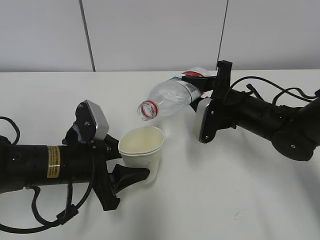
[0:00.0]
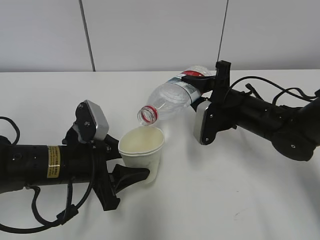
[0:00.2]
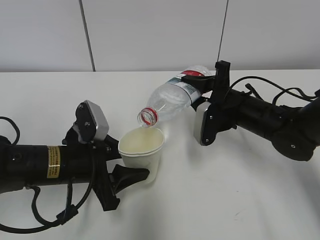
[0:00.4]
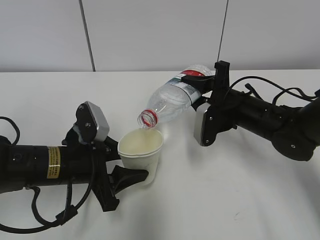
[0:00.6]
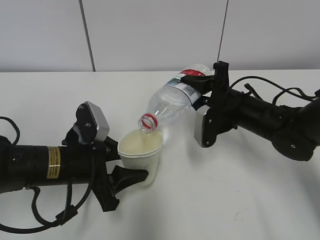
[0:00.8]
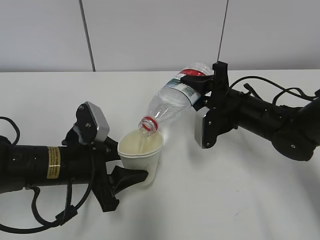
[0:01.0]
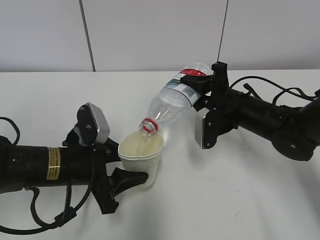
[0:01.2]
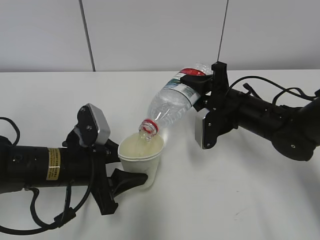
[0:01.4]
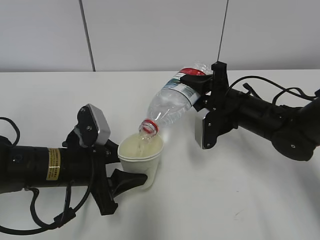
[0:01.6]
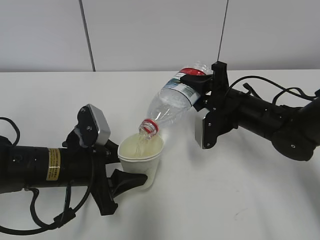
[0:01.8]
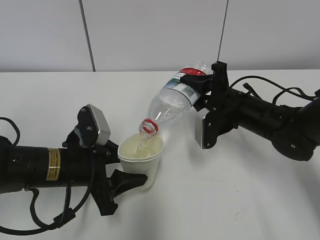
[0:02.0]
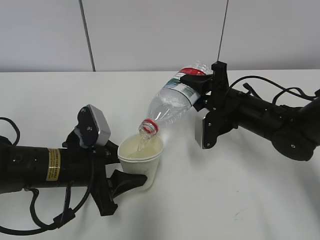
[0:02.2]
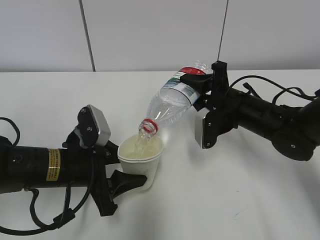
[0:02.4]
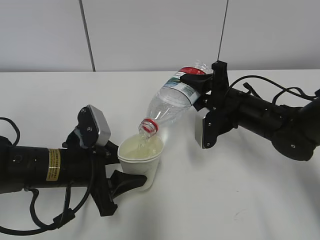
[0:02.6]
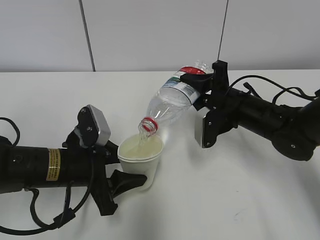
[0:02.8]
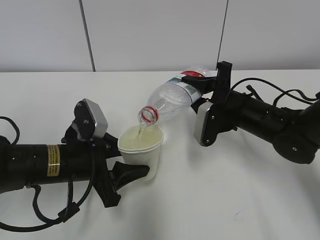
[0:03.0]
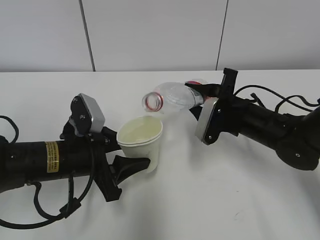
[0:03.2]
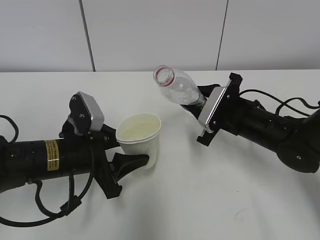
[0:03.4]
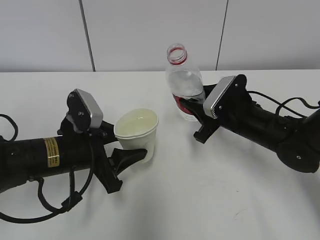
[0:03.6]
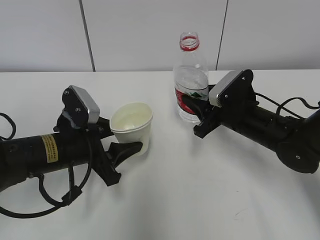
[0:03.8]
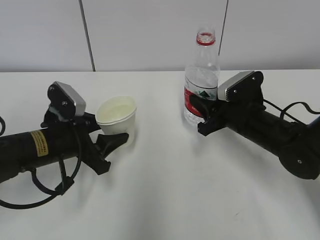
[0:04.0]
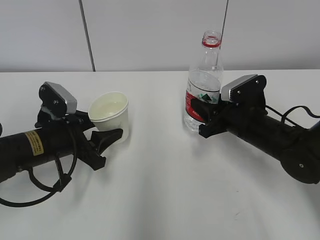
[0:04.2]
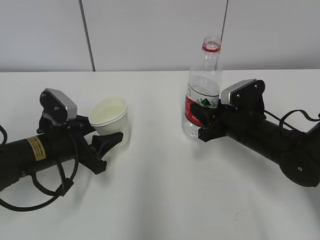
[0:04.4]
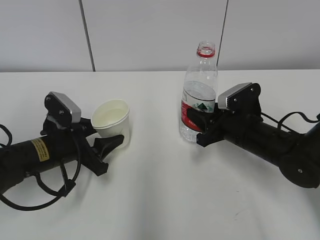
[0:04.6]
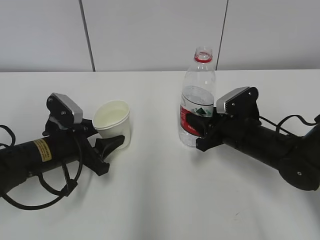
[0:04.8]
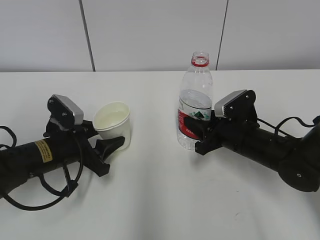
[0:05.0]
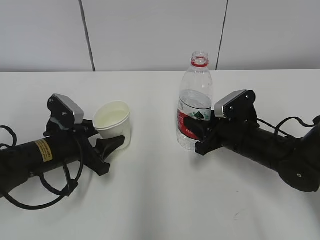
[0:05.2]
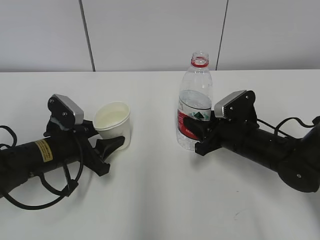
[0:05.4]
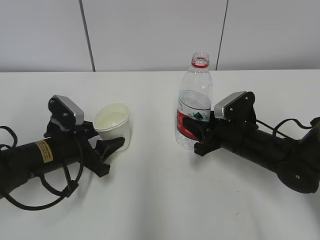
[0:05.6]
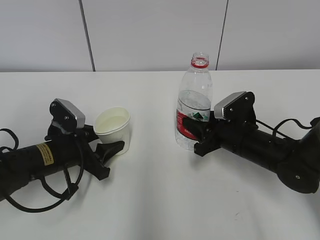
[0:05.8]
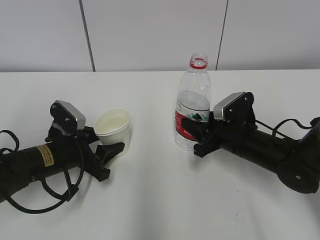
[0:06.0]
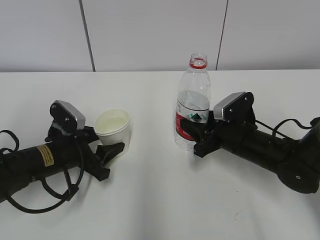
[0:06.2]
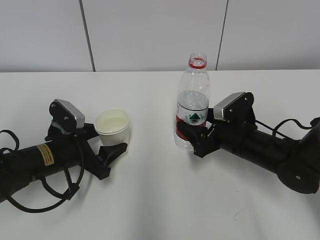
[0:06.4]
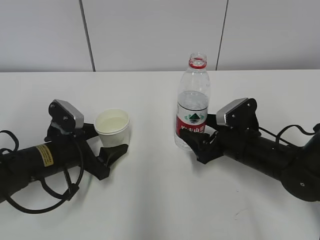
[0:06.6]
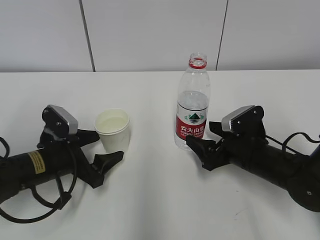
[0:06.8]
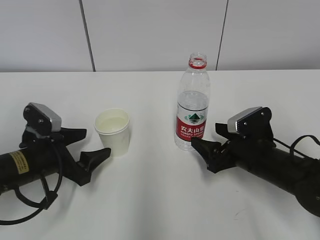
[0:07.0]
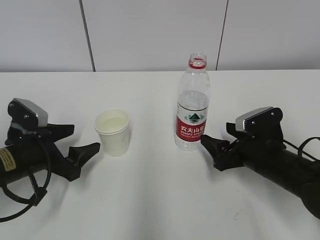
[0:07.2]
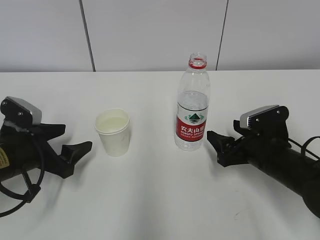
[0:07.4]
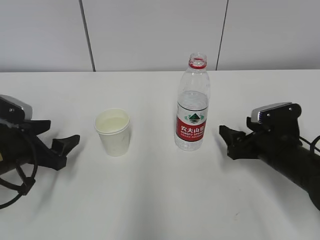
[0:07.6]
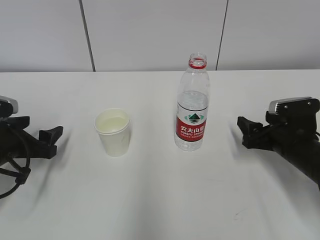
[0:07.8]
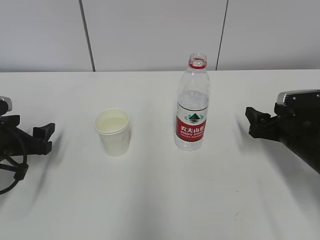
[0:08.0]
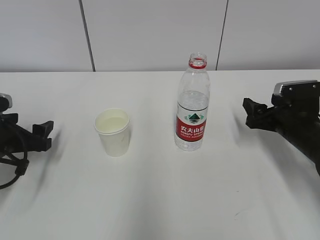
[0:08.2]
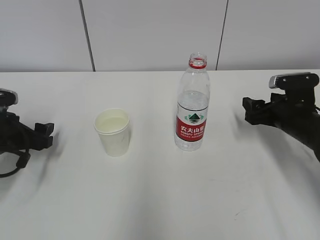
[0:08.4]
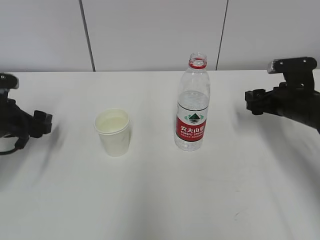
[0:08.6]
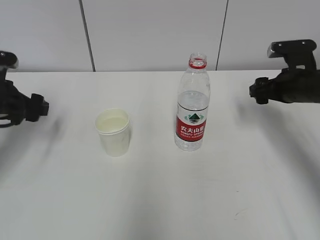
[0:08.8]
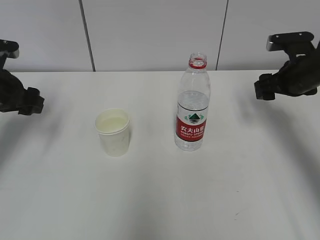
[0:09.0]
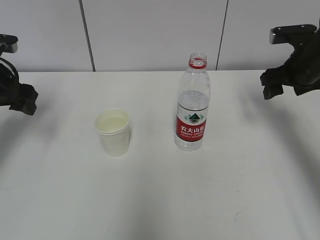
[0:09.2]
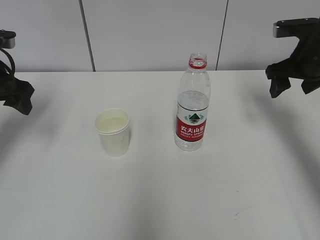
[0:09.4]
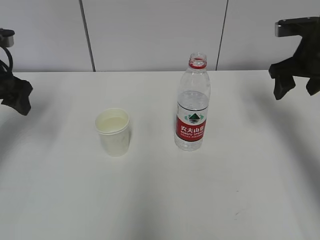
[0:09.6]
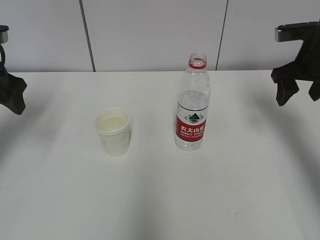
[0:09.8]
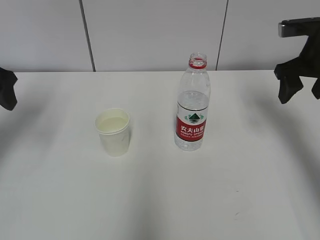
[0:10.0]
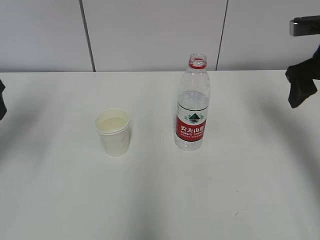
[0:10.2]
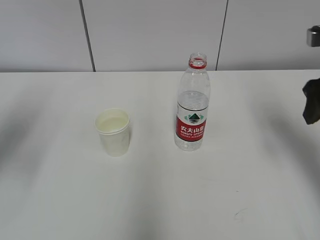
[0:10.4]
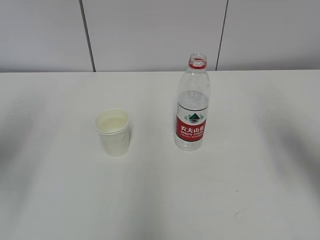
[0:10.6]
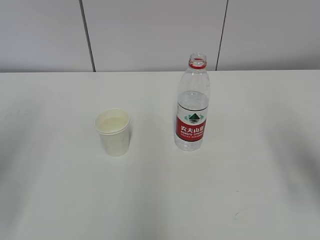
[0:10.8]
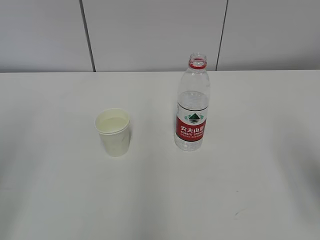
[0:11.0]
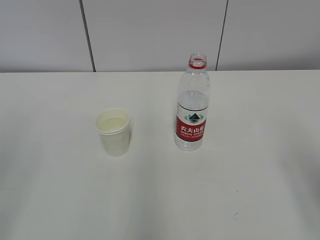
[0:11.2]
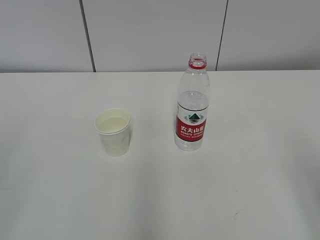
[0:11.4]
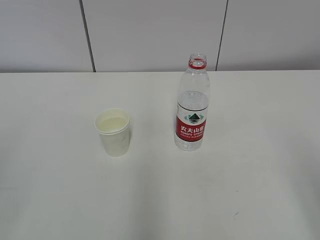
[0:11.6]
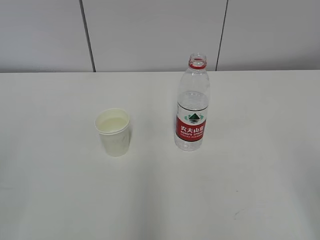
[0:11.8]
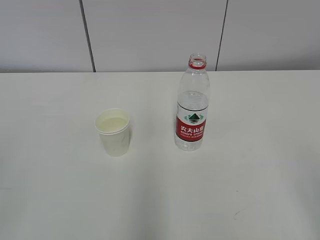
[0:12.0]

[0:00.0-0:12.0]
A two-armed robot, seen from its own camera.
Step, 0:00.4 to 0:02.0: Place the paper cup with the left hand.
0:00.0 to 0:03.0: The grippers stay close to where they were, moving slightly.
0:03.0 to 0:04.4: The left gripper changes place by some 5 cm.
0:04.4 to 0:06.0: There are only small adjustments of the grippers.
0:06.0 to 0:07.6: The right gripper travels to the right by about 5 cm, and opens its fingers. Meanwhile the left gripper shifts about 5 cm to the left, and opens.
0:07.6 to 0:09.0: The left gripper travels upward and forward by about 15 cm. Meanwhile the right gripper moves upward, forward and to the right, roughly 15 cm.
0:09.0 to 0:10.4: The grippers both shift backward and upward by roughly 15 cm.
0:10.4 to 0:12.0: Both grippers travel together backward, approximately 25 cm.

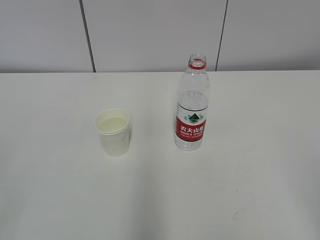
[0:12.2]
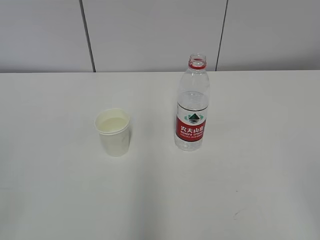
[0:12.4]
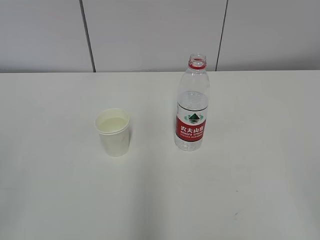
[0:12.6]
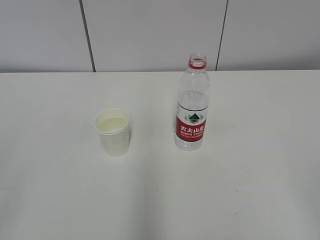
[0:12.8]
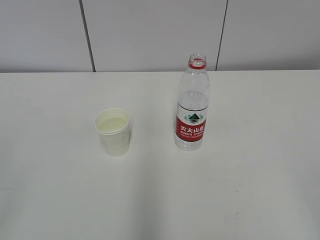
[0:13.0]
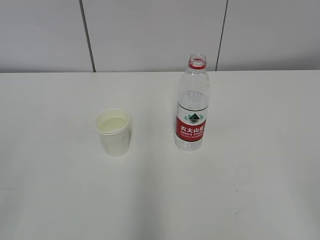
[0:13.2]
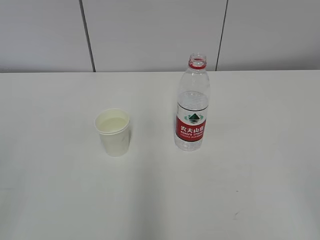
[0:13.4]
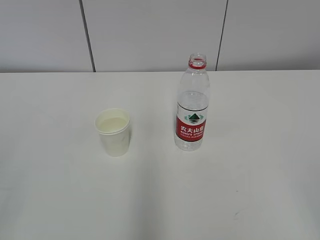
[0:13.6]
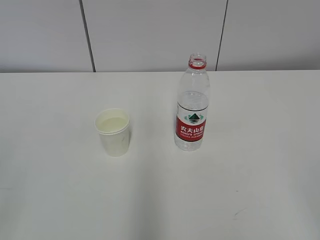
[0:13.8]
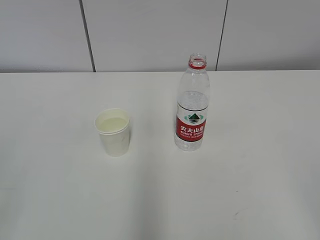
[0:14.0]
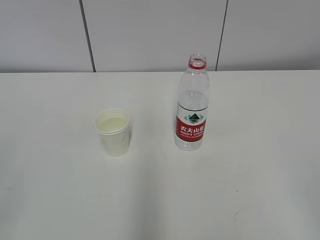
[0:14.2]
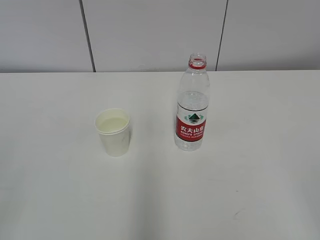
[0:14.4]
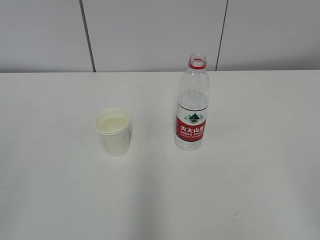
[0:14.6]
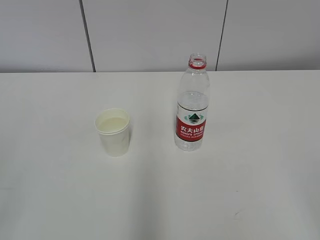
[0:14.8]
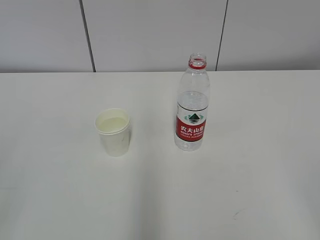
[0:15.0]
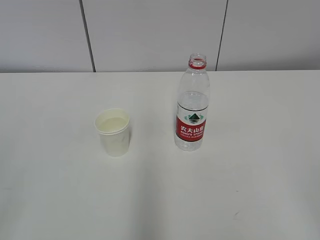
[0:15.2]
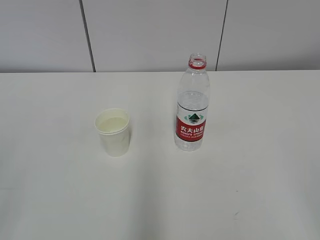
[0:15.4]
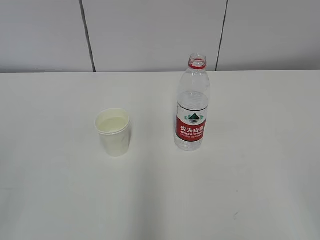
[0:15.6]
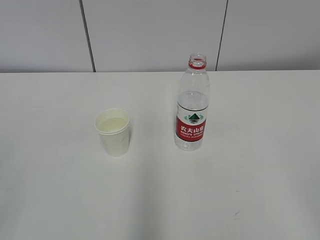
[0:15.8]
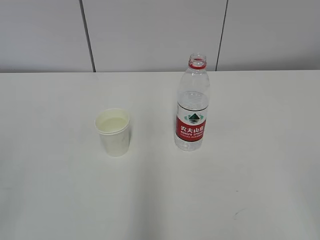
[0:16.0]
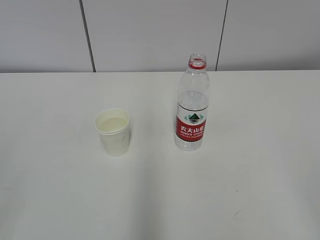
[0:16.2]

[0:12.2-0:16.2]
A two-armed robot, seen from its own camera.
0:13.6 to 0:16.2: Both grippers stay put.

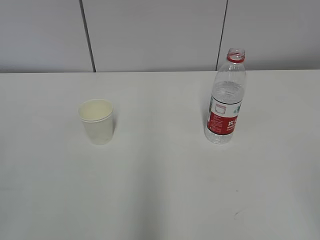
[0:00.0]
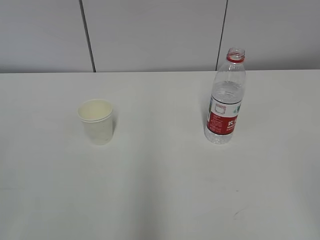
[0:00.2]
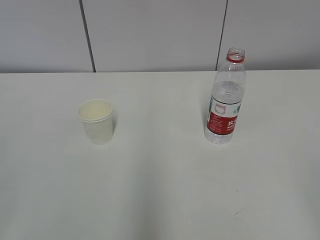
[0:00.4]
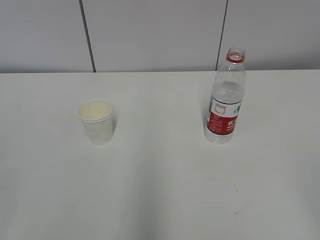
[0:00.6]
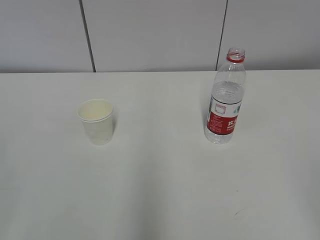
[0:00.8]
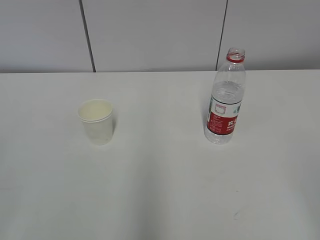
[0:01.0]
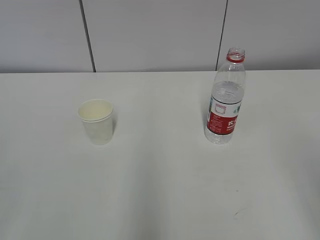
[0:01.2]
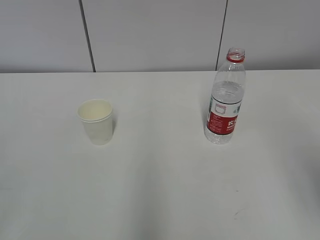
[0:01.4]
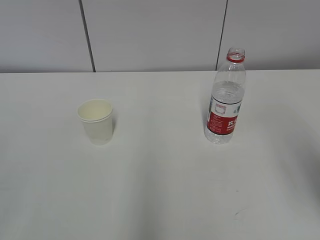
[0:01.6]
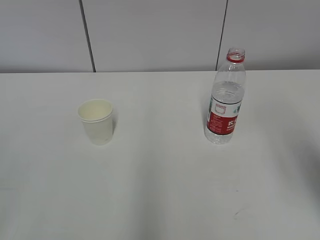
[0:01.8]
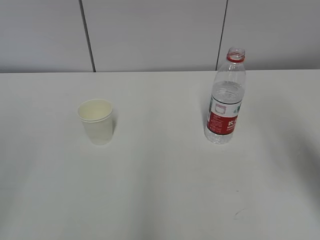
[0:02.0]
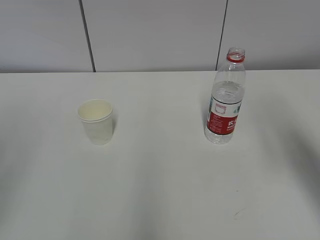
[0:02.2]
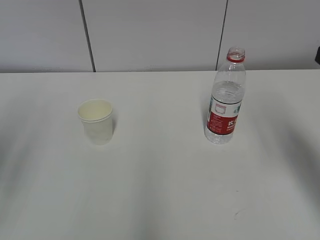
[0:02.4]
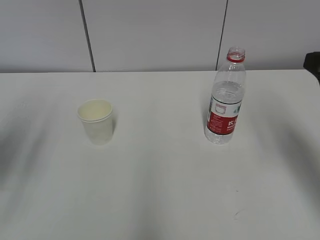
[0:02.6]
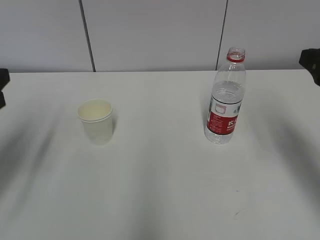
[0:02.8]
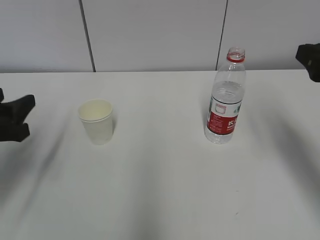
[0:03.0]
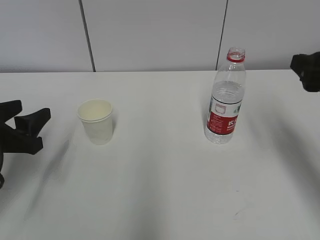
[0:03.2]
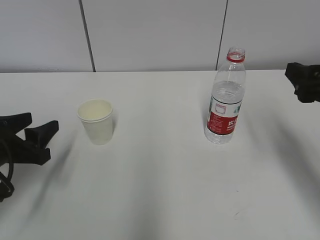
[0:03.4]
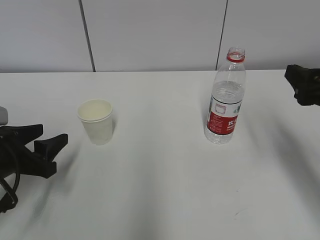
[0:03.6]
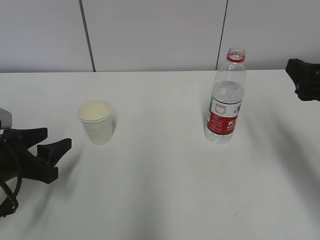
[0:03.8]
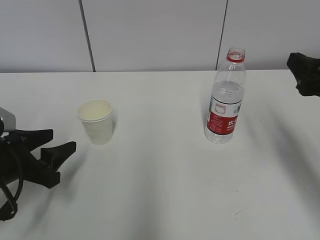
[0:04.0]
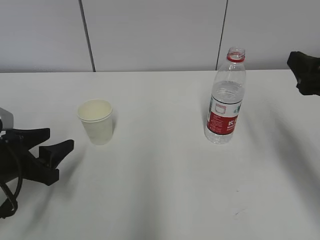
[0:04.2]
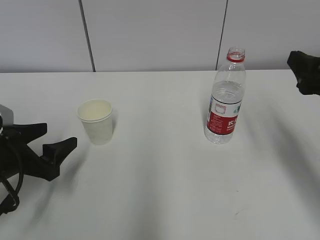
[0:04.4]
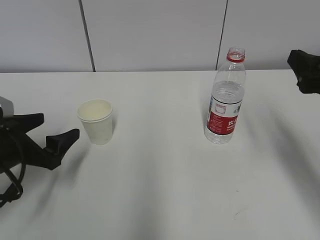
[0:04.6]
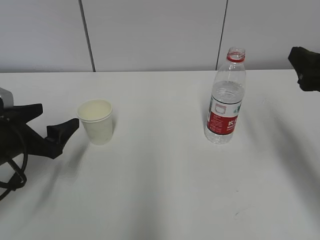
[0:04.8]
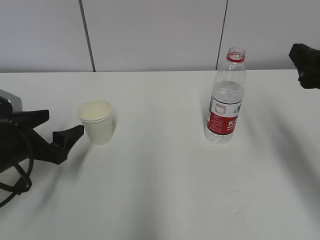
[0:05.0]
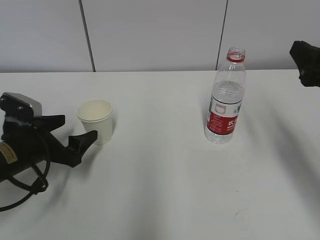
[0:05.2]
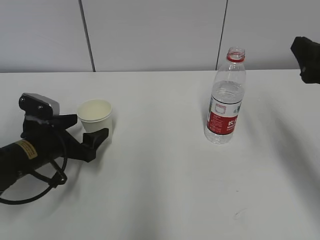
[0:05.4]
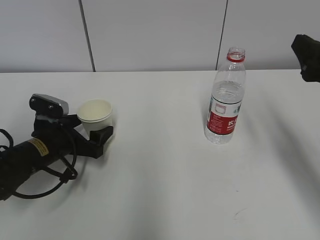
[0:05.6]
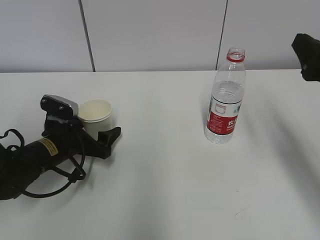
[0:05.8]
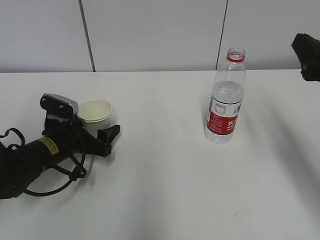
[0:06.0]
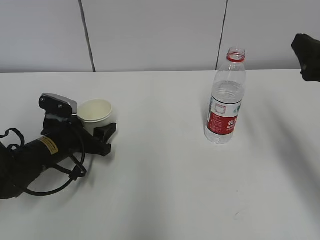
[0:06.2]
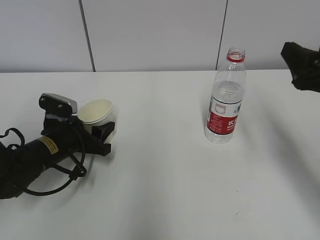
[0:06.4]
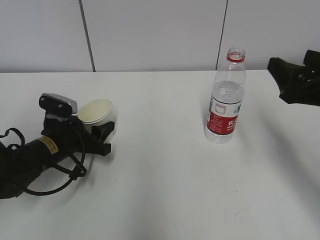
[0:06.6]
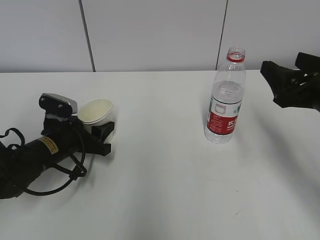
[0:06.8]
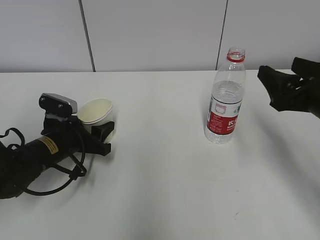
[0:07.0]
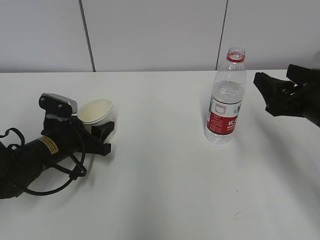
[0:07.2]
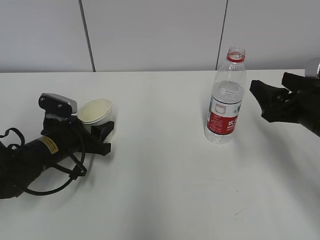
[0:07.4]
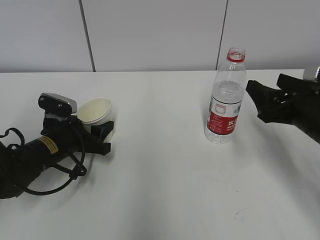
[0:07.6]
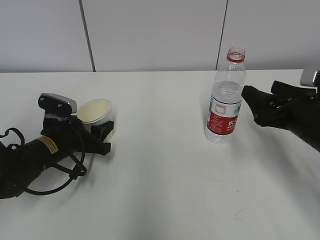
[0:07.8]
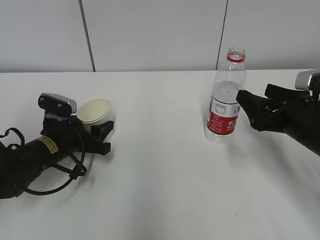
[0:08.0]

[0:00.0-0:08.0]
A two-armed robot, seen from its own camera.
0:01.6 to 0:03.2: The right gripper moves forward and downward, roughly 15 cm; the left gripper is displaced forward and downward by roughly 25 cm.
0:03.2 to 0:04.8: The left gripper opens its fingers.
0:04.8 to 0:06.4: The left gripper shifts approximately 10 cm forward, downward and to the right, and closes.
0:06.4 to 0:08.0: The right gripper moves downward, some 10 cm.
